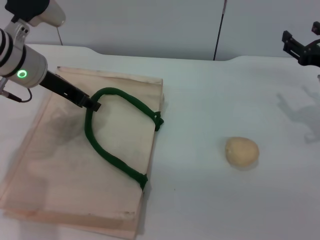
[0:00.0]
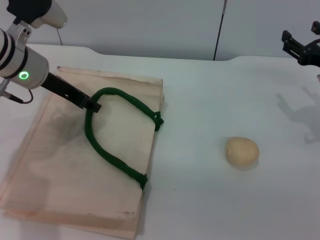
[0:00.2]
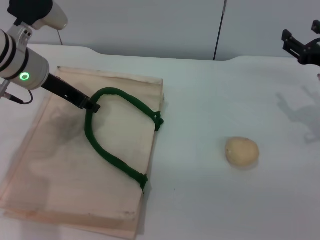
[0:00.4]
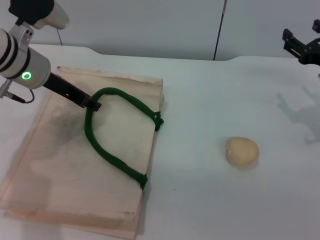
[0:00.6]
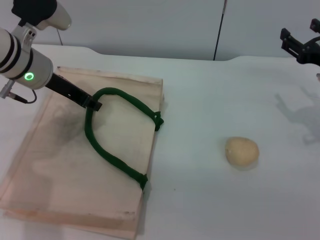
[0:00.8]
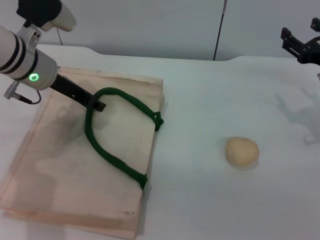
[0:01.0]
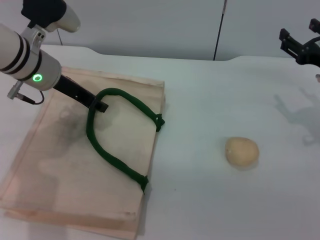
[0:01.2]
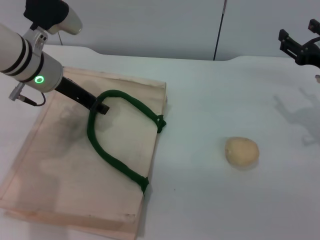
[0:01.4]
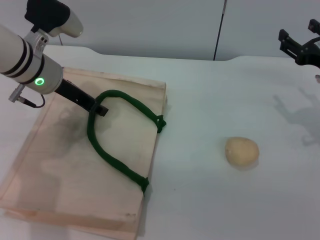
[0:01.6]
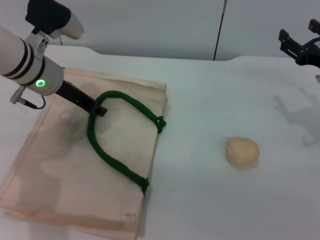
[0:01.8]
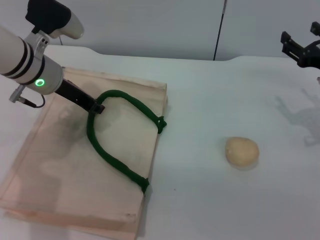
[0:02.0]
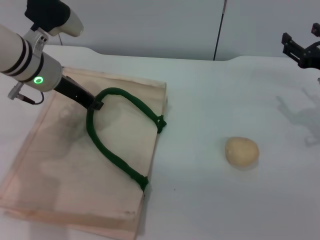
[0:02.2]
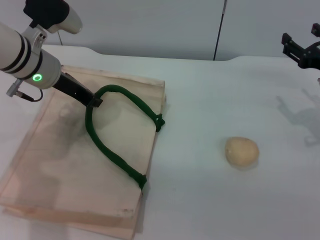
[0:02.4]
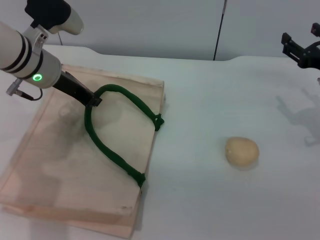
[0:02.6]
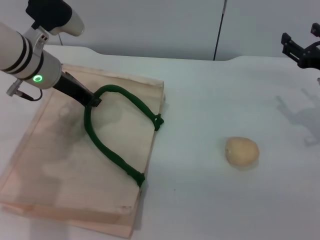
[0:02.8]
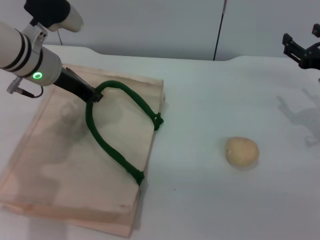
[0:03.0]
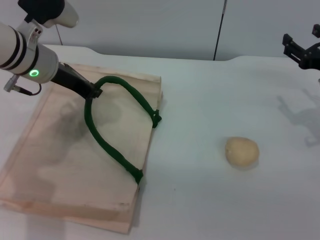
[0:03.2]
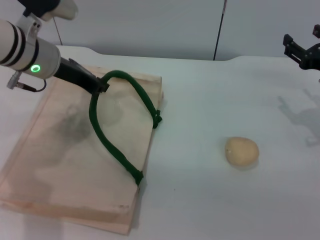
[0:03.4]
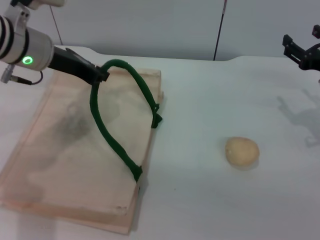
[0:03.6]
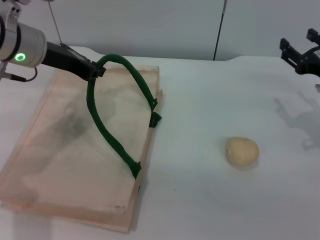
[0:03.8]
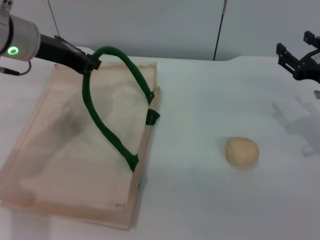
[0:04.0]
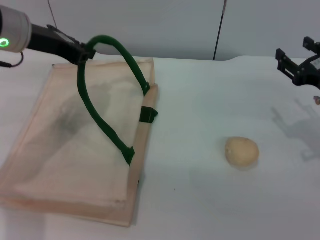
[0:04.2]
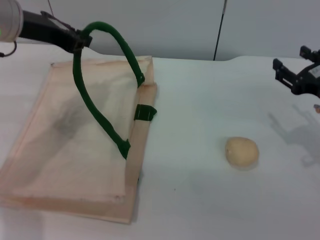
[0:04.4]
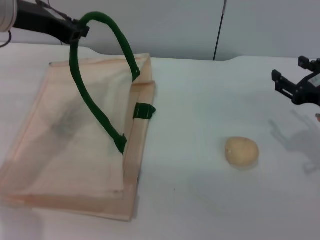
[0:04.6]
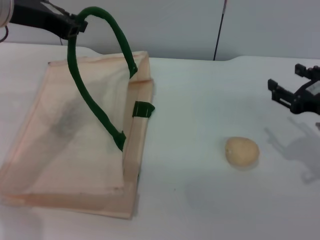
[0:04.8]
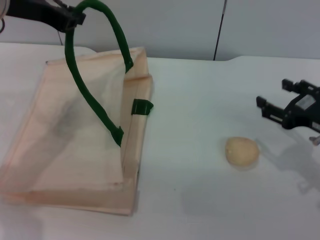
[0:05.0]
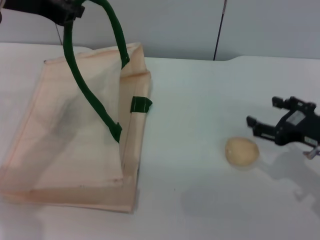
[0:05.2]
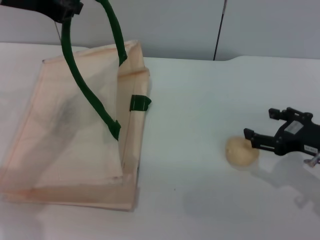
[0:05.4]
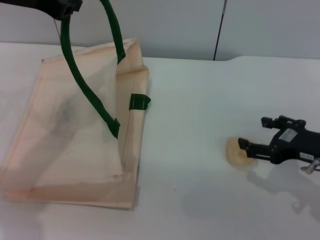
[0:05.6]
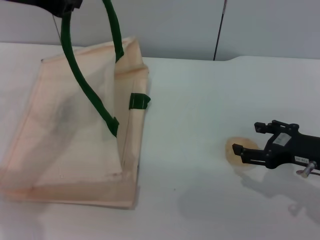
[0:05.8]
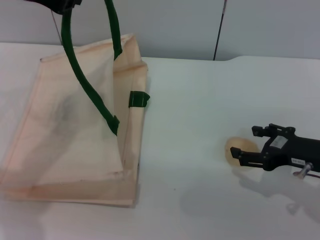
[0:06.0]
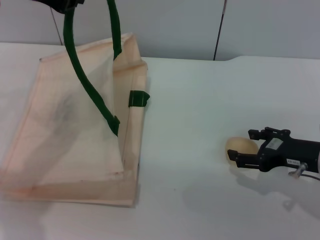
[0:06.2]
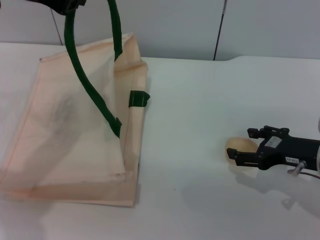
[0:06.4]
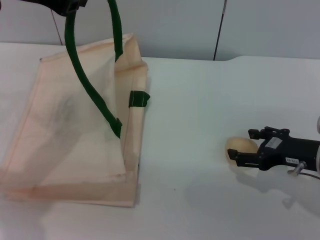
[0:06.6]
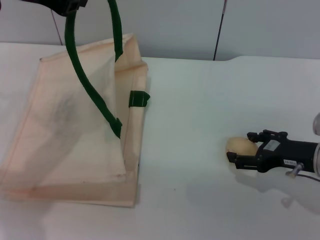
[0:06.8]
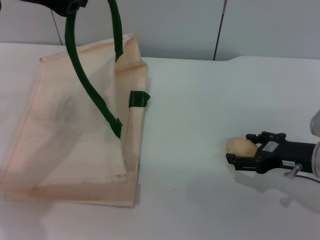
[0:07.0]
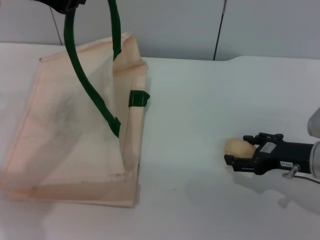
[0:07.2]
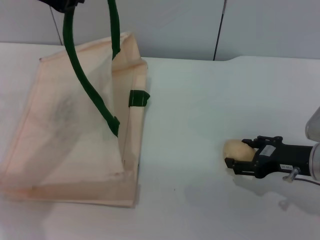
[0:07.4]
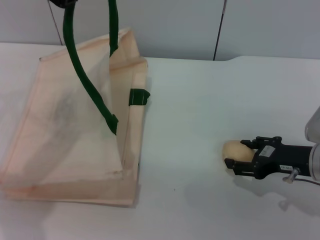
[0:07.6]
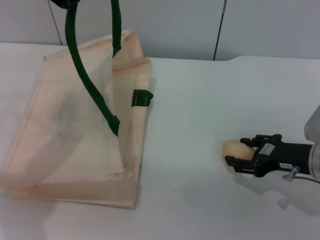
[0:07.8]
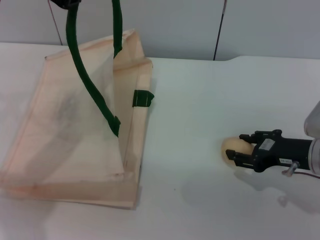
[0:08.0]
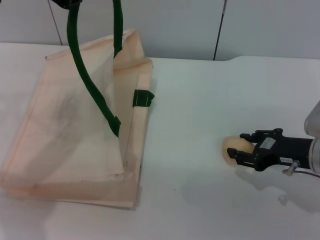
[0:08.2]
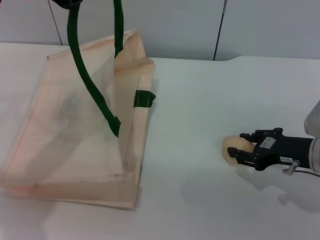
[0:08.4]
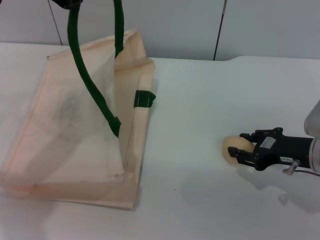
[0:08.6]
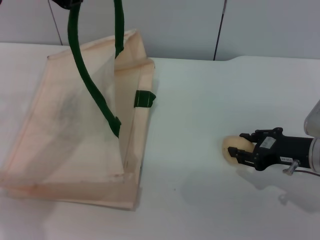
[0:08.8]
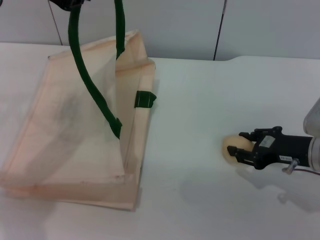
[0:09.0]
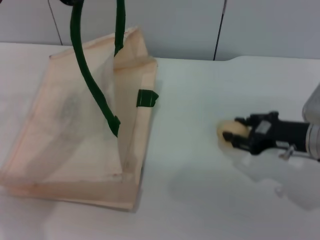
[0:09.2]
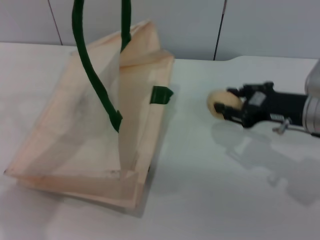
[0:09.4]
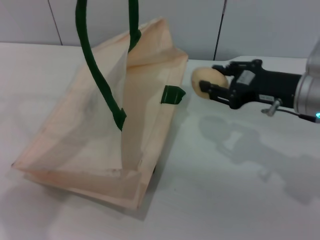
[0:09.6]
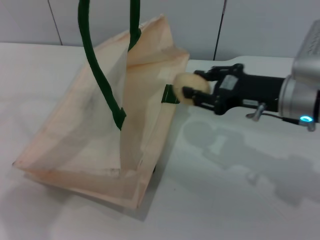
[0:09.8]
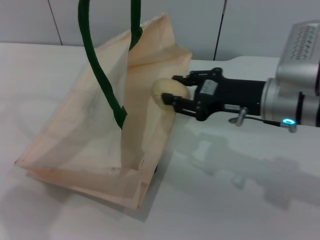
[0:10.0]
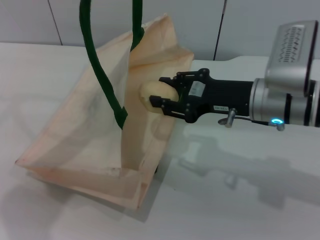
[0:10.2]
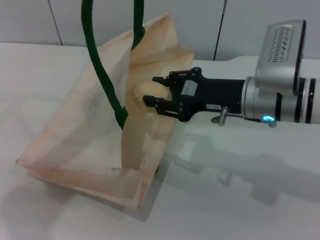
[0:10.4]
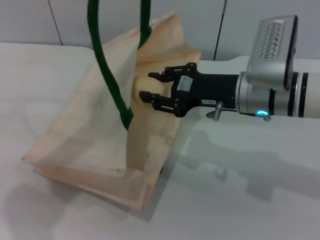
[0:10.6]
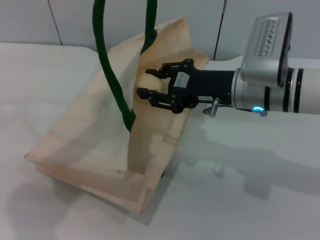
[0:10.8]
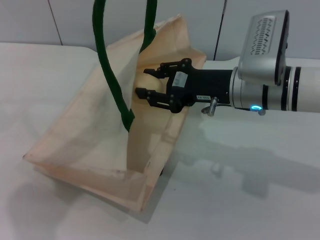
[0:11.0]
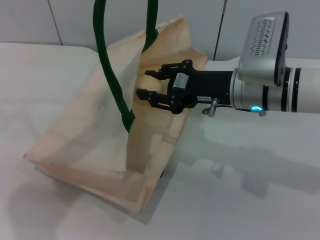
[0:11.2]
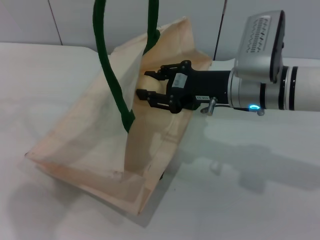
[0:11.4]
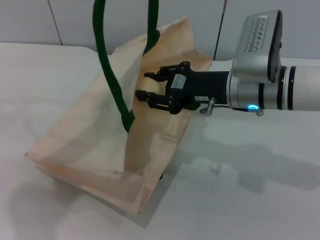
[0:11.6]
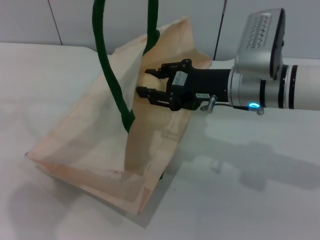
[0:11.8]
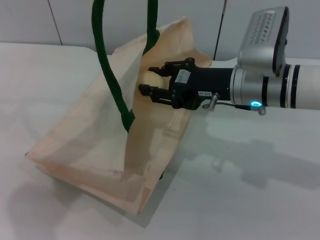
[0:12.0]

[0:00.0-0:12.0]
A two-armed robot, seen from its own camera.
Task of the whole recording: pick up the egg yolk pastry from the table and place it in the white handbag.
Step, 0.0 to 4.2 s: Lift the woven bag with the left gripper to open it.
Step, 4.4 to 9.2 s: Pick up the egg yolk pastry with the right gripper.
0.0 to 1.6 s: The grippers make only small movements.
1.6 to 3.0 s: The left gripper closes up.
3.0 to 4.4 s: The left gripper shifts approximately 10 cm upward.
4.4 to 6.0 s: The left gripper shifts roughly 5 cm upward. Meanwhile the right gripper opens.
6.0 to 7.6 s: The grippers make only small movements.
7.6 to 9.0 s: The right gripper closes up.
9.0 to 10.4 s: The right gripper travels to the left and upward by approximately 10 cm.

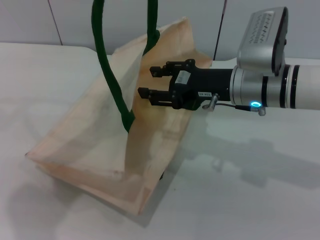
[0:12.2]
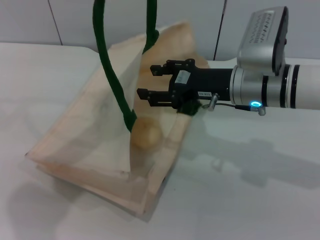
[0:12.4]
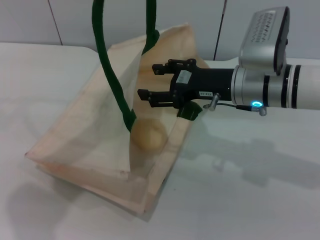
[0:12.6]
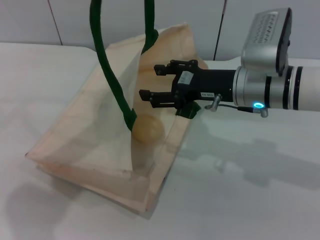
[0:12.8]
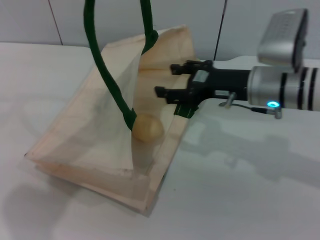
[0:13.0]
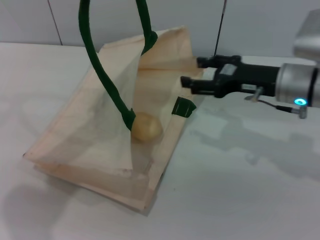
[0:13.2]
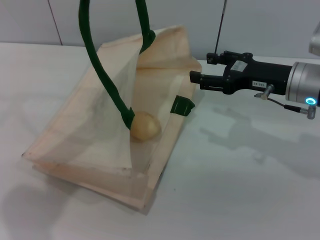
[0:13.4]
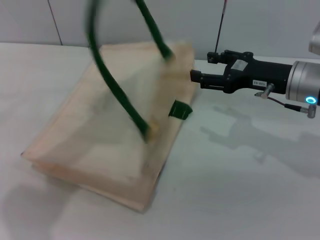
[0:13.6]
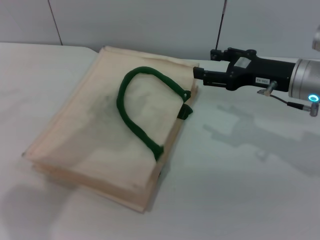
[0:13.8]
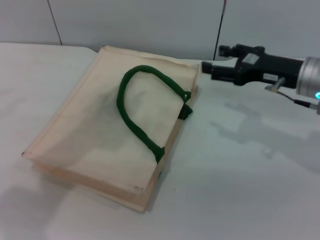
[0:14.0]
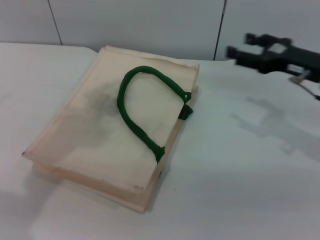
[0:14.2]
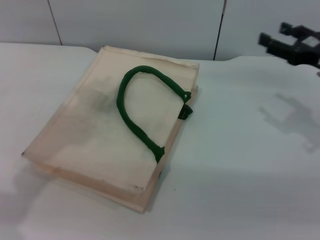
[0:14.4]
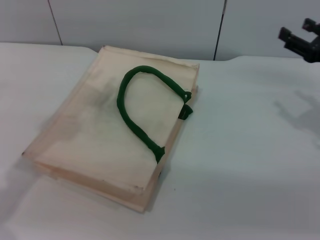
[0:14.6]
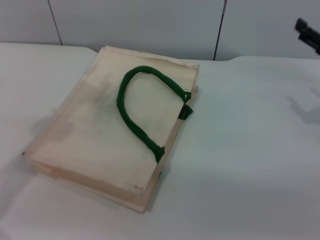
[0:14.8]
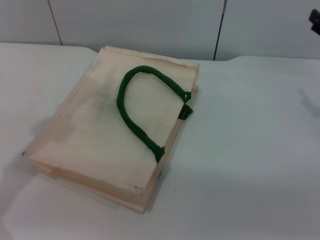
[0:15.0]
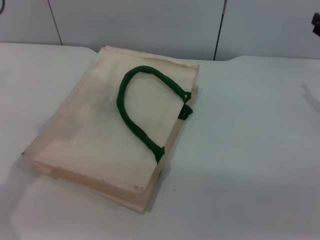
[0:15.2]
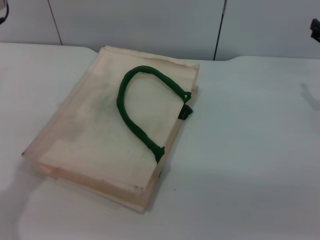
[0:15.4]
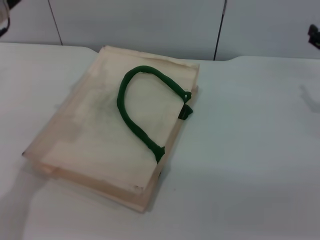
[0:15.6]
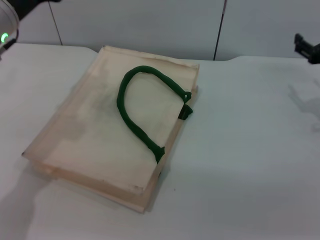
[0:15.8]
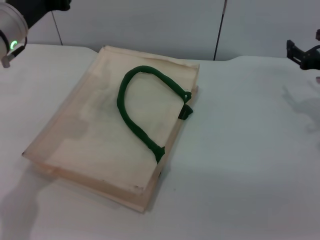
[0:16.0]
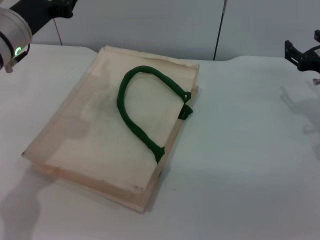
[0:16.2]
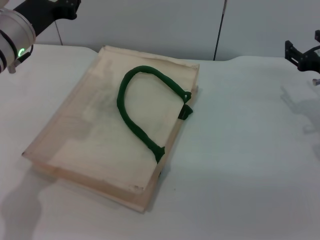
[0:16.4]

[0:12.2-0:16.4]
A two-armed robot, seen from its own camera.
Task of the whole recording: pick up the egg yolk pastry from the table and place it in the white handbag.
Step, 12.8 to 14.0 s: Lower the woven bag with the left gripper to close it.
12.2 to 13.6 s: The right gripper shifts roughly 10 cm to the right, and opens; the left gripper opens its fingers.
13.6 to 15.0 s: The right gripper goes some 10 cm to the right. Meanwhile the left gripper is displaced downward and to the left by approximately 10 cm.
15.0 to 16.4 s: The right gripper shifts by approximately 5 cm. The left gripper travels downward by some 10 cm.

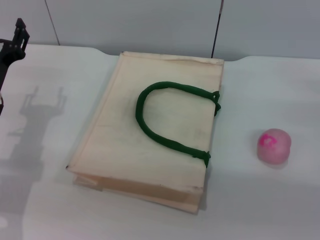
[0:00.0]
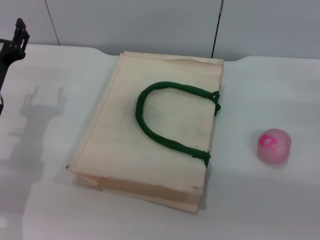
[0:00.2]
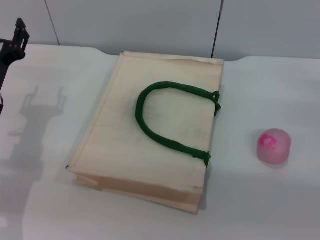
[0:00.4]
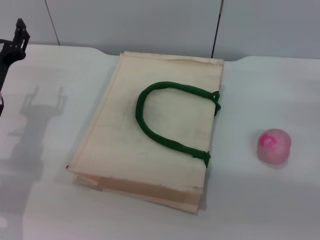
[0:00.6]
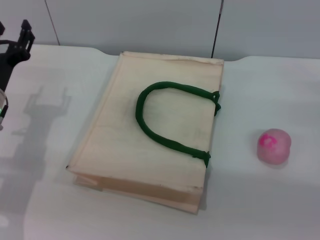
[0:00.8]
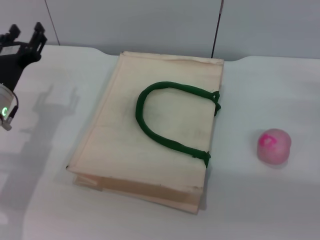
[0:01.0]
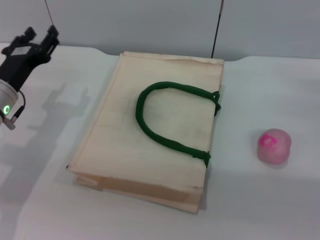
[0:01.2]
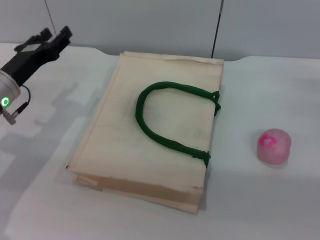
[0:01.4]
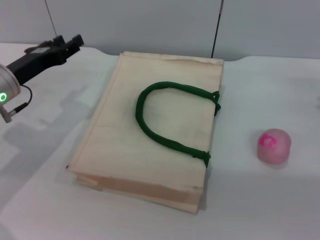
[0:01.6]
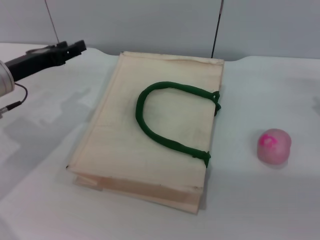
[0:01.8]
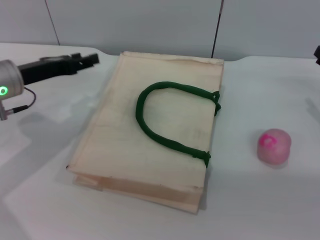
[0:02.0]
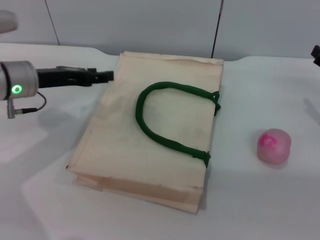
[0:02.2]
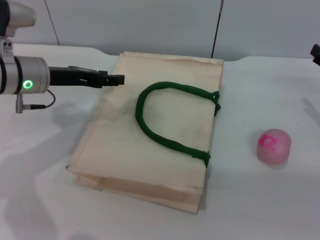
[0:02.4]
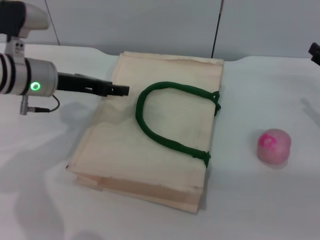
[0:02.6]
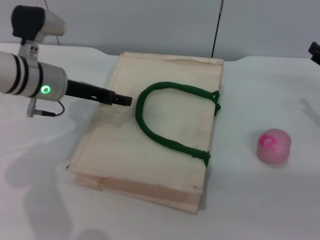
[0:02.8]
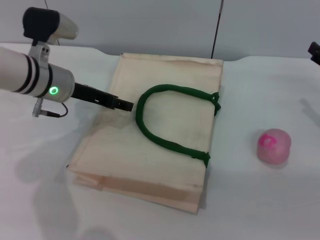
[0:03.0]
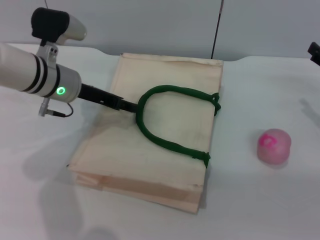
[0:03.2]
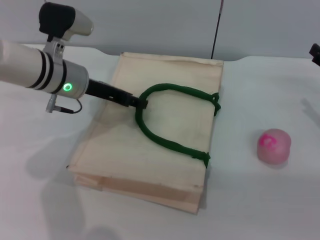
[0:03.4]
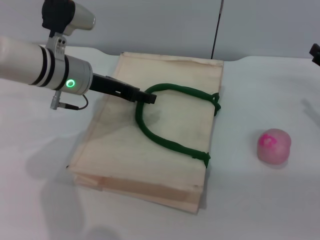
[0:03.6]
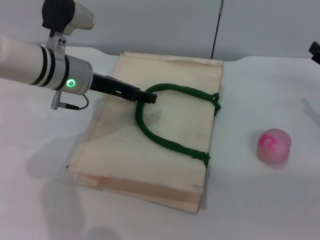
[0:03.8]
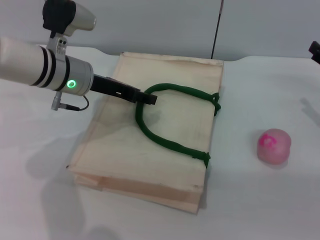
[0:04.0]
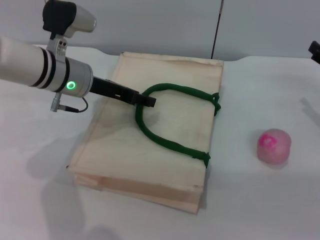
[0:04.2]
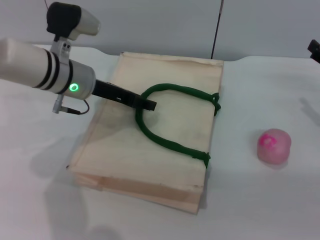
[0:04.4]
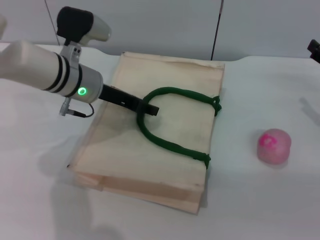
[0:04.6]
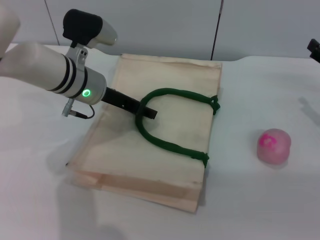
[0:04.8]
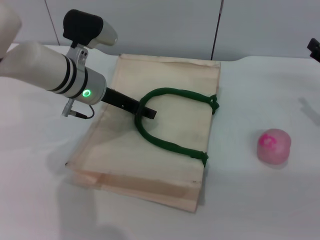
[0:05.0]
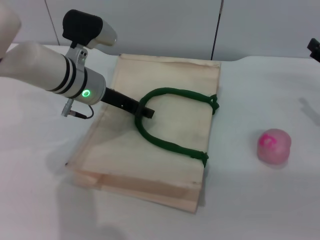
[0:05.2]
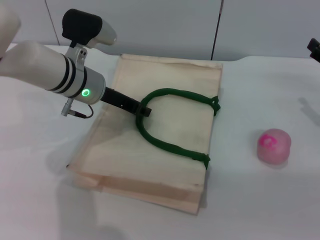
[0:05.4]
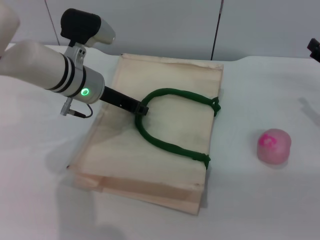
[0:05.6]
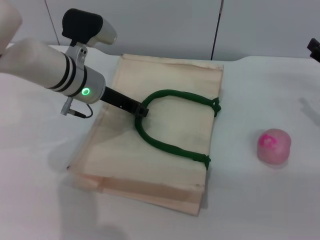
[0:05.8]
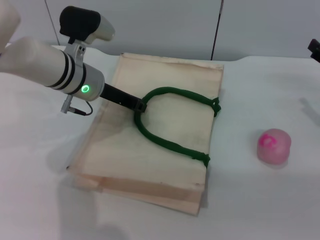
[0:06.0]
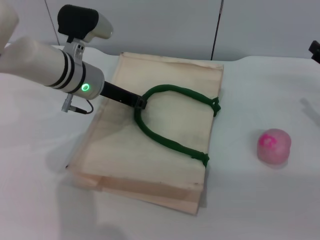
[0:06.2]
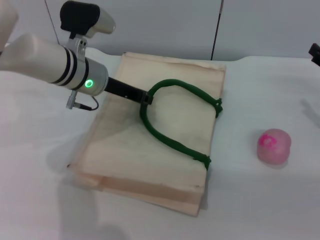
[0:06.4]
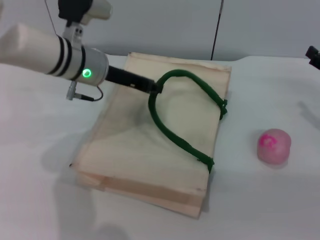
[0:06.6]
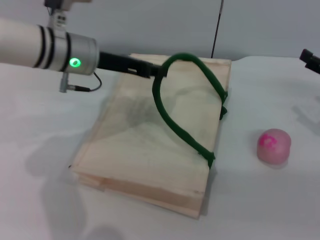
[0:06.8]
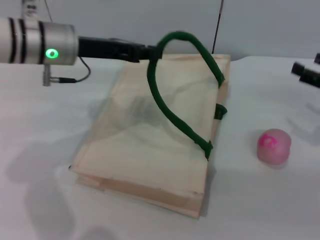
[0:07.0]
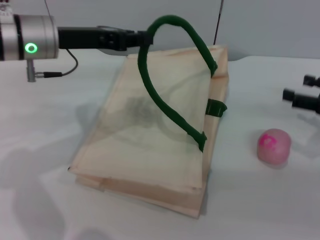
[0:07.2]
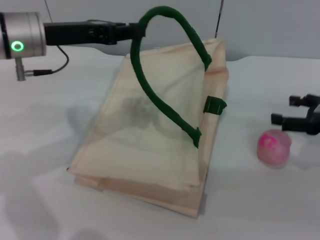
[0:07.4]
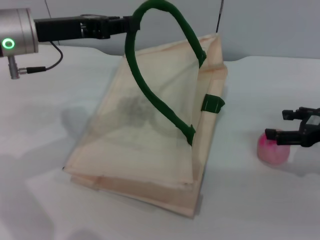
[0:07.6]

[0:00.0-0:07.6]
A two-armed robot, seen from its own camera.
Task of the whole recording: pick up the peach from the table and place it in the white handbag.
Step, 0.0 to 6.8 s: Lift the woven bag with the left gripper to open it.
1.6 to 3.0 s: The left gripper is displaced to the right by about 5 cm.
3.0 to 4.6 s: The grippers stay close to where they were, moving slightly.
4.6 to 6.0 s: The left gripper closes.
6.0 to 7.6 s: The left gripper moves upward and to the left, some 10 cm.
